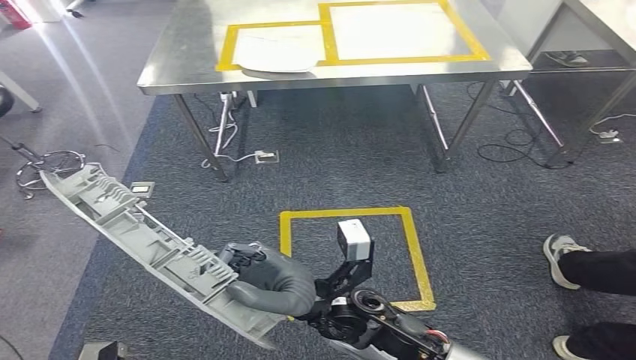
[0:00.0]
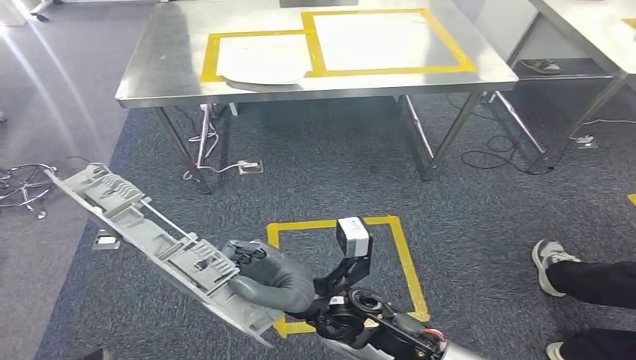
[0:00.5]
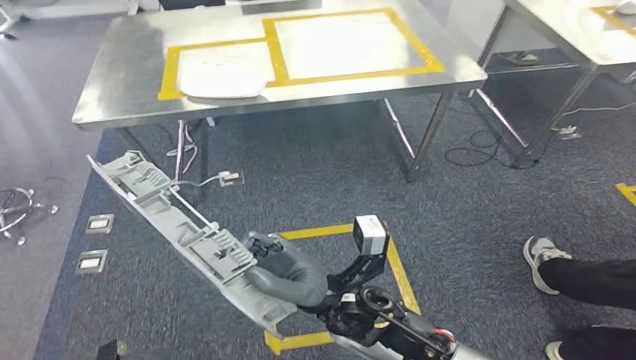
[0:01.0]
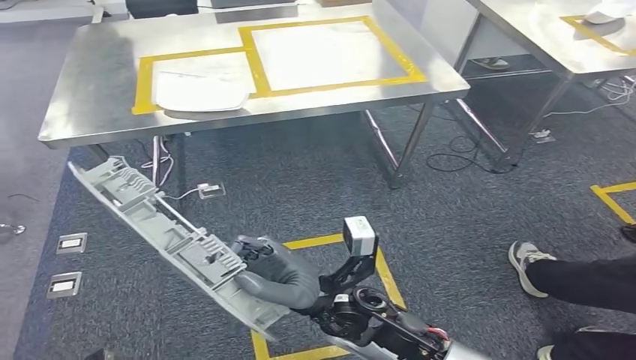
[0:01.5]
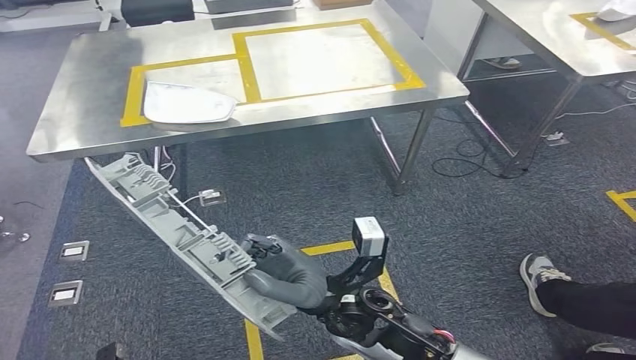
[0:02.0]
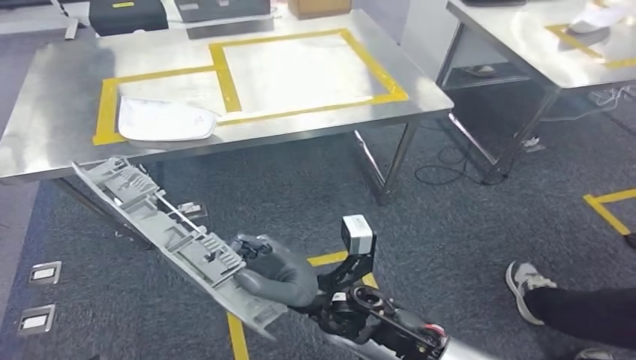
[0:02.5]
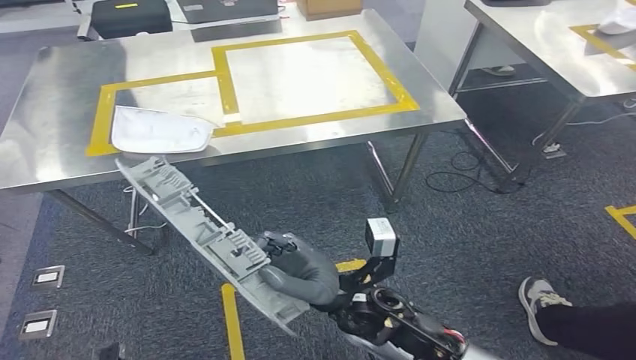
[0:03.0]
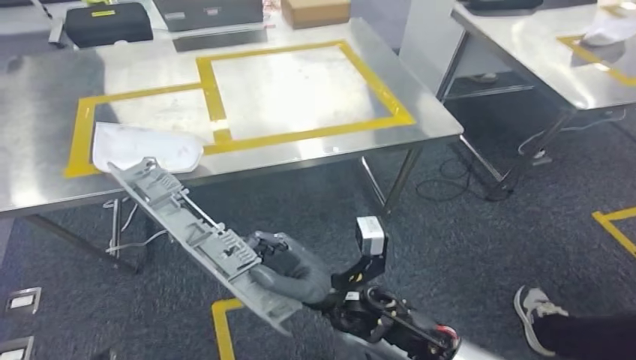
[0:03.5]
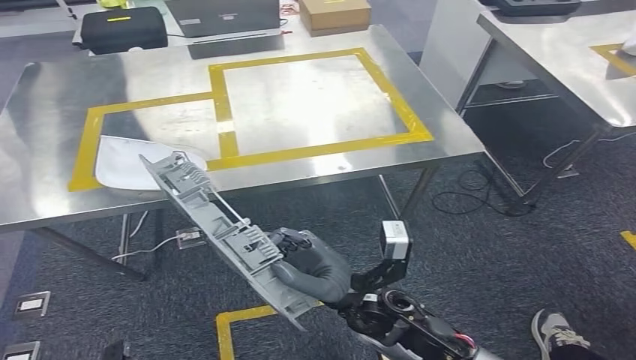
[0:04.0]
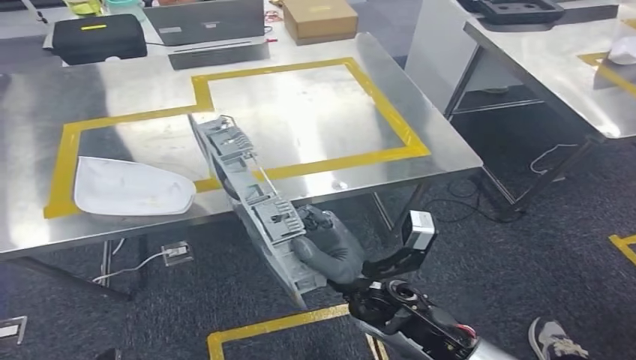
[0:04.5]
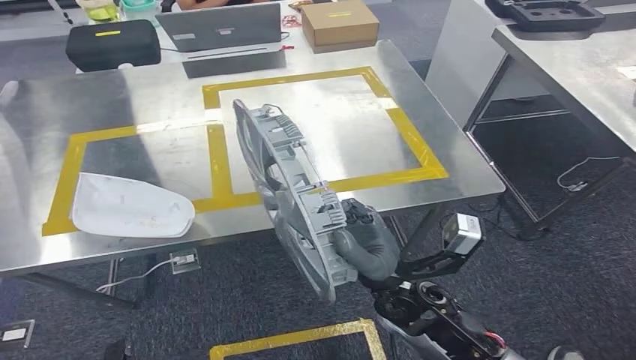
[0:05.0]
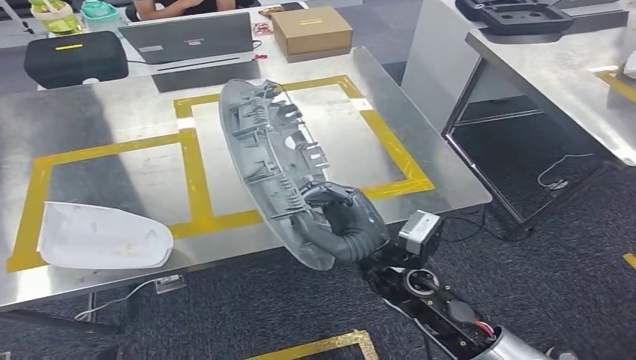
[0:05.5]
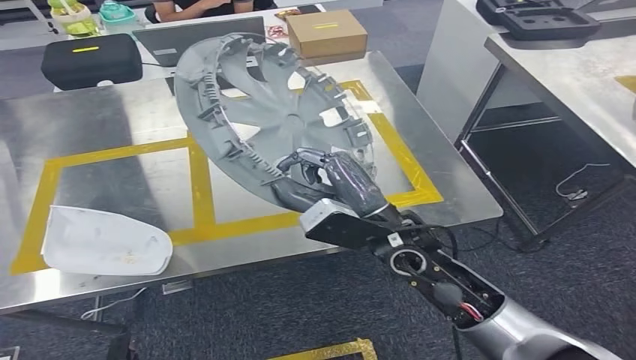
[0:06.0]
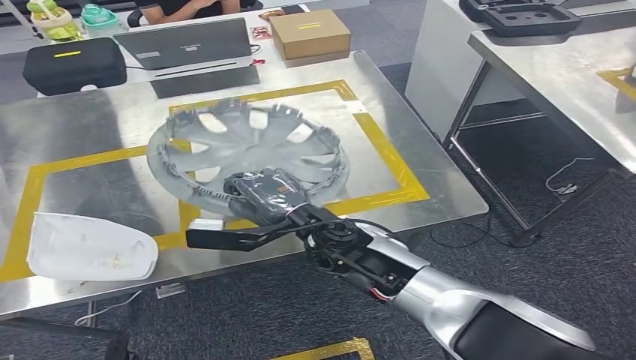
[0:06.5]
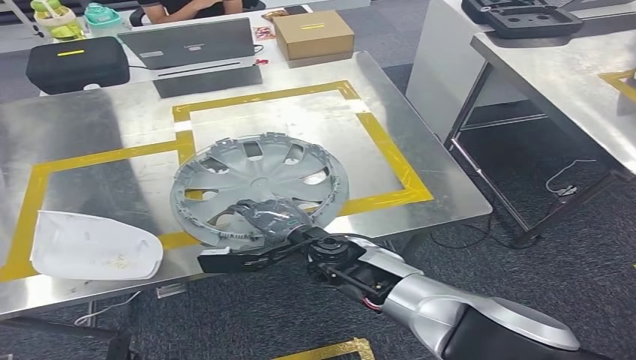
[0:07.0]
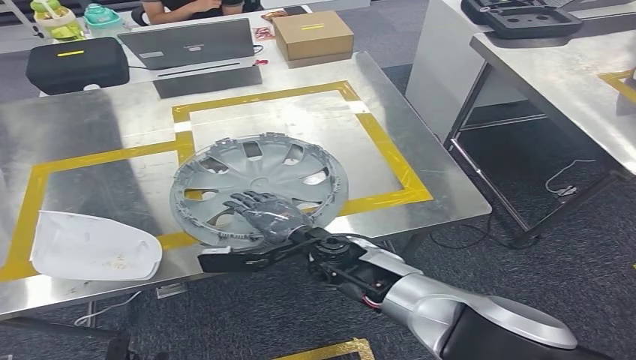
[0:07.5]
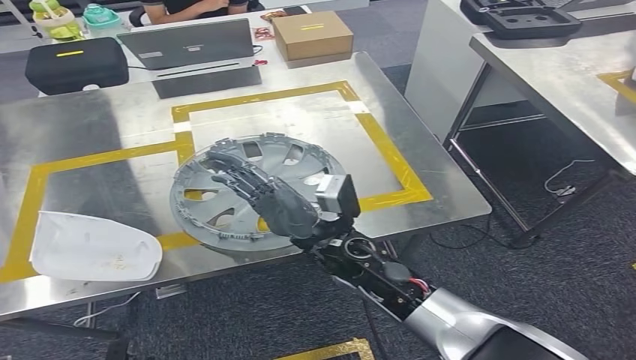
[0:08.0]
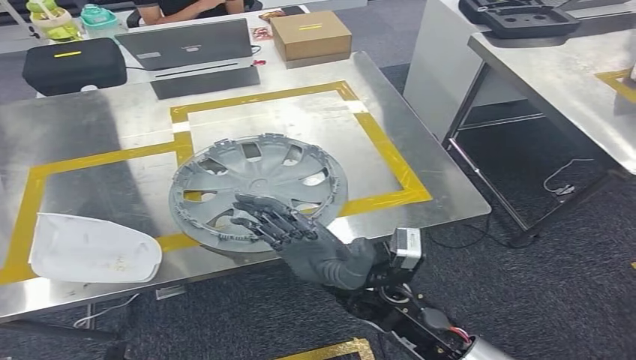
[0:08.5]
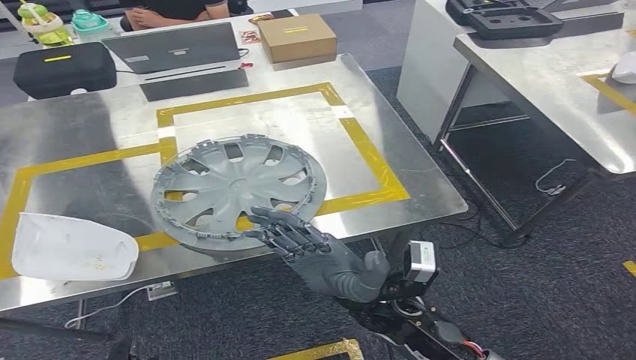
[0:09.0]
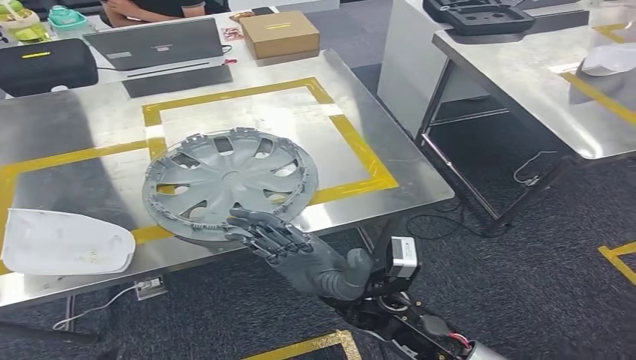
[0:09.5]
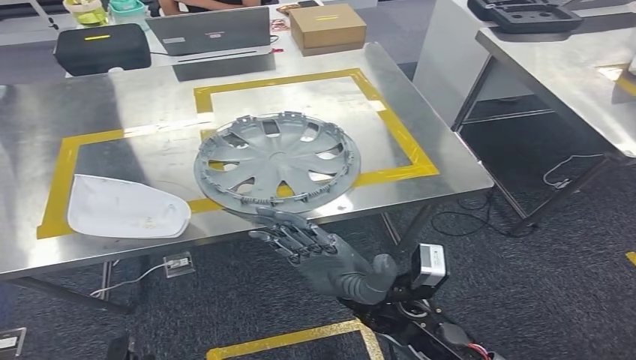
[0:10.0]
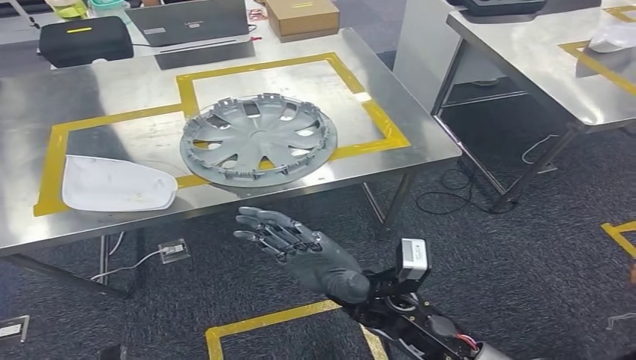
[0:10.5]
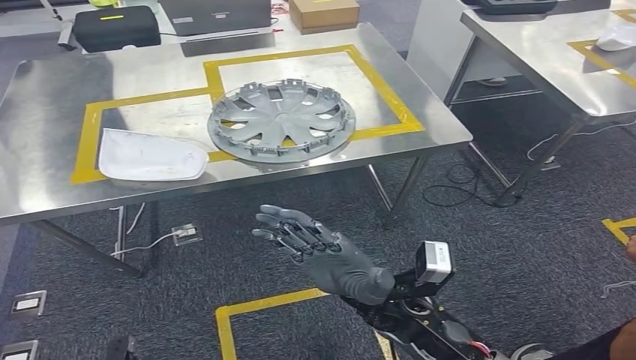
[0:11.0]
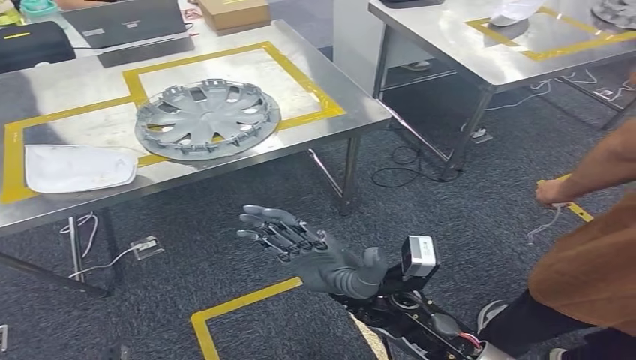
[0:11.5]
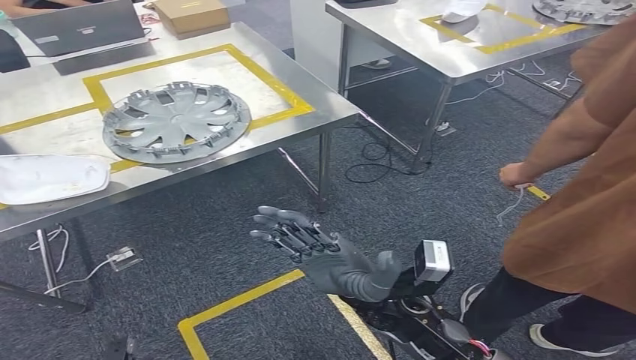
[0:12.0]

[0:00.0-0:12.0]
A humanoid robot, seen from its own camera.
Step, 0:00.0 to 0:06.0: Move the small component to the workbench.
Step, 0:06.5 to 0:11.0: Insert the small component into the corresponding slot on the workbench.

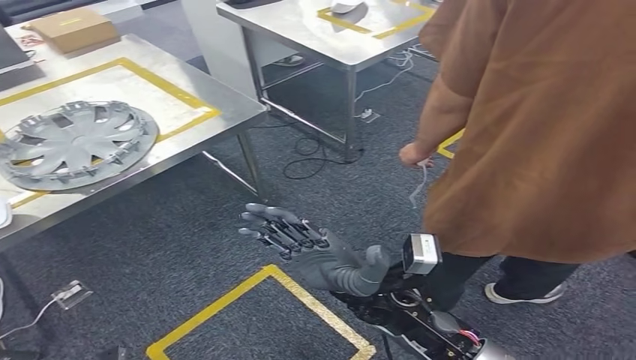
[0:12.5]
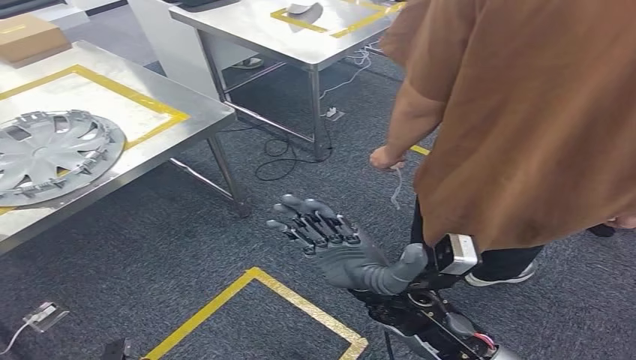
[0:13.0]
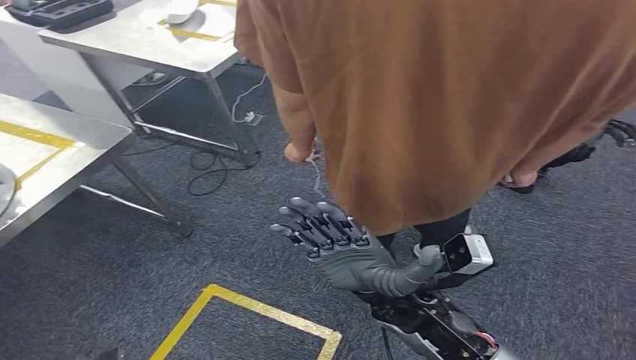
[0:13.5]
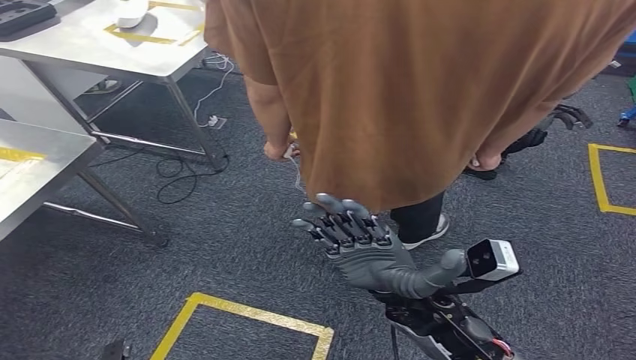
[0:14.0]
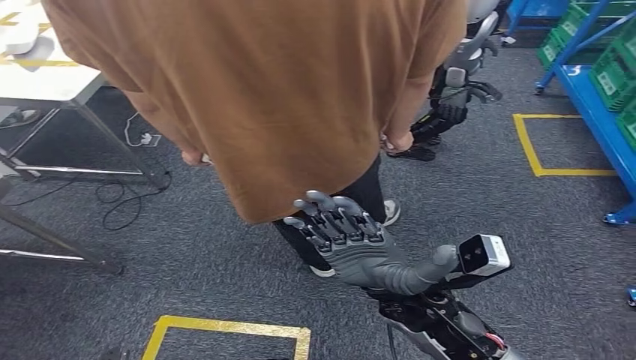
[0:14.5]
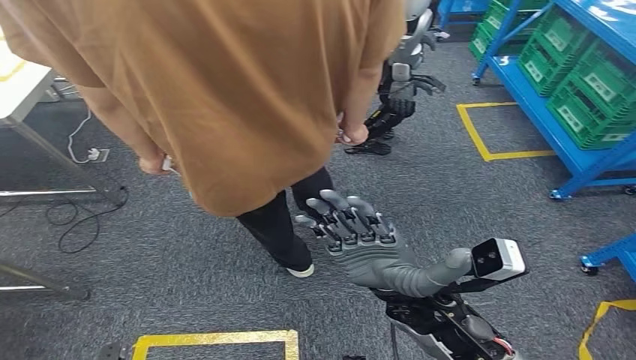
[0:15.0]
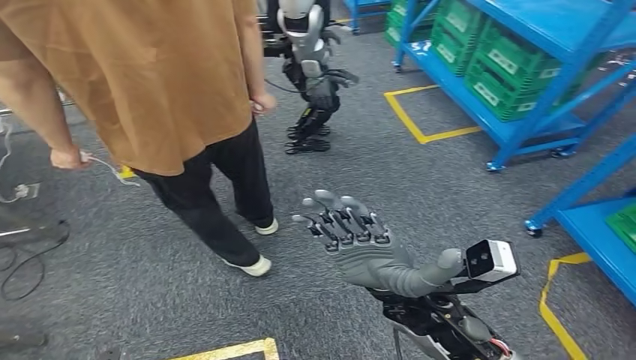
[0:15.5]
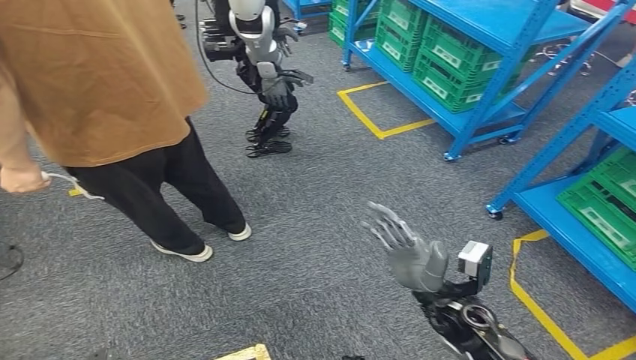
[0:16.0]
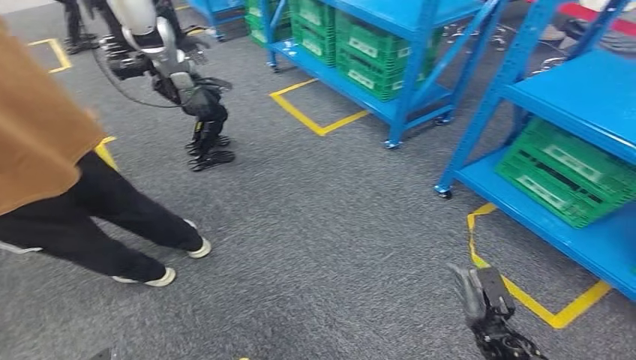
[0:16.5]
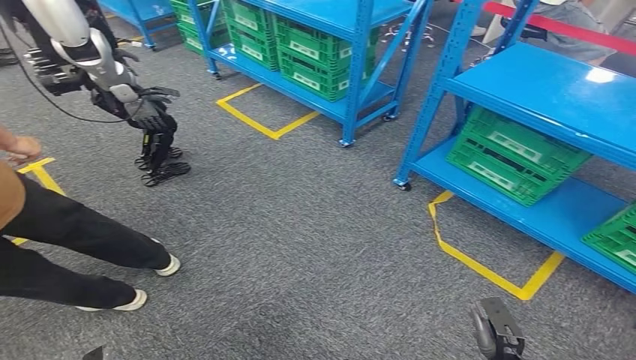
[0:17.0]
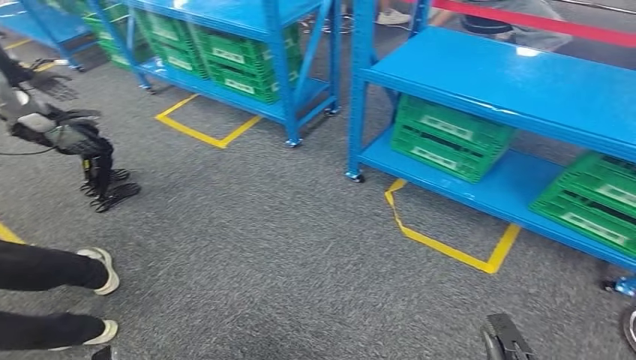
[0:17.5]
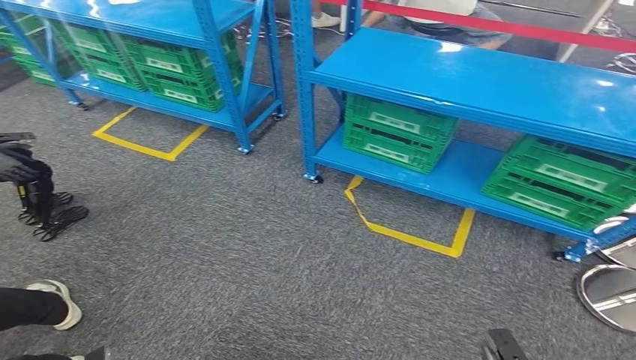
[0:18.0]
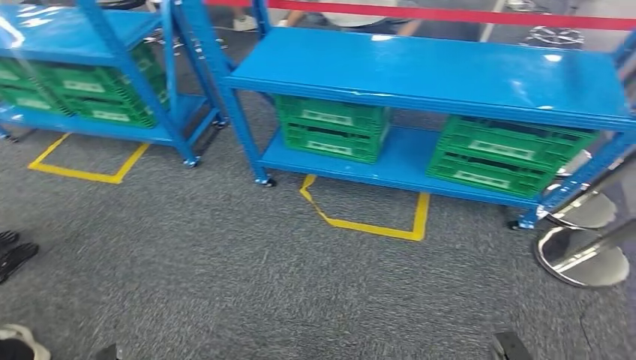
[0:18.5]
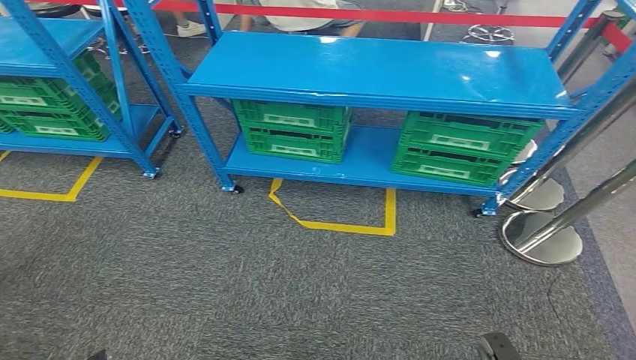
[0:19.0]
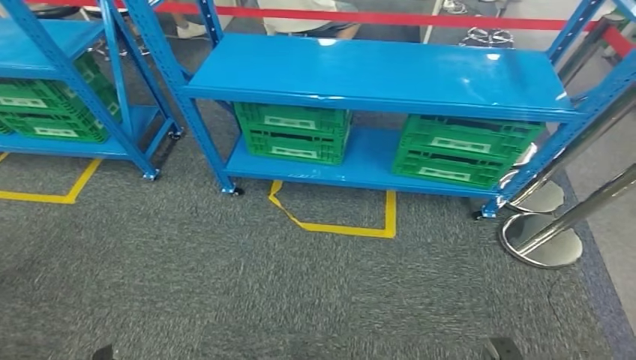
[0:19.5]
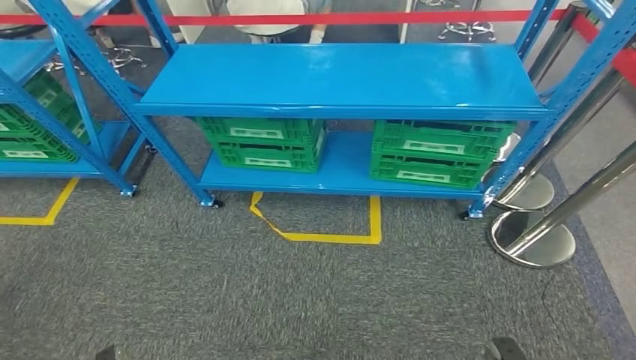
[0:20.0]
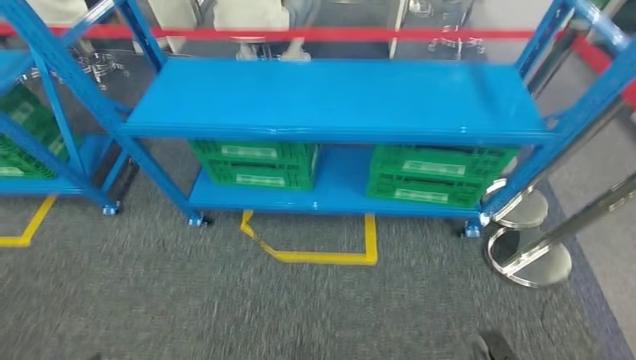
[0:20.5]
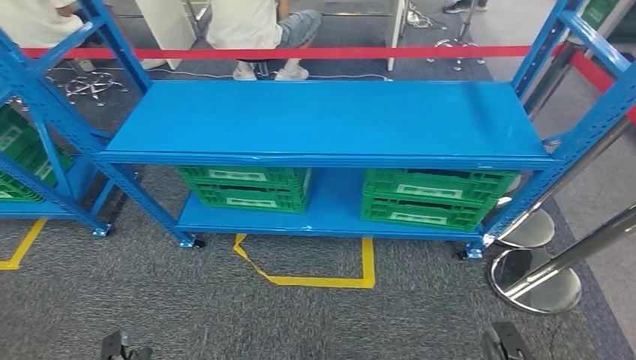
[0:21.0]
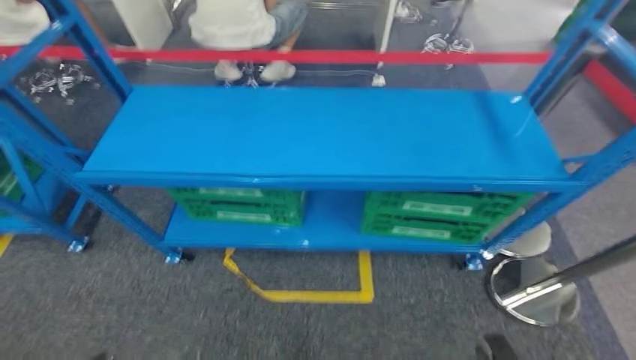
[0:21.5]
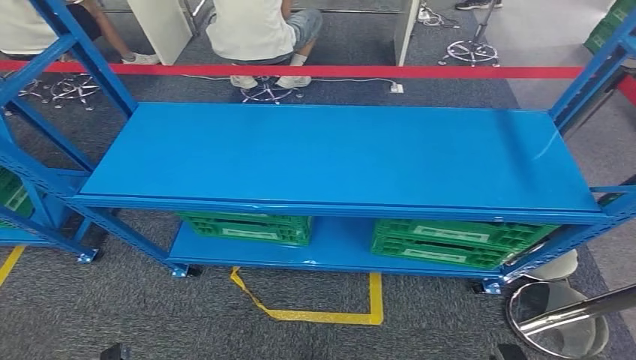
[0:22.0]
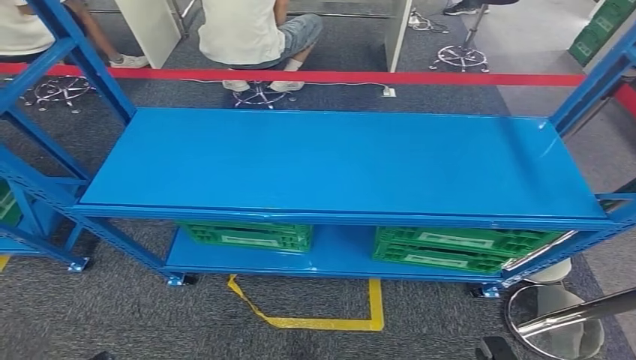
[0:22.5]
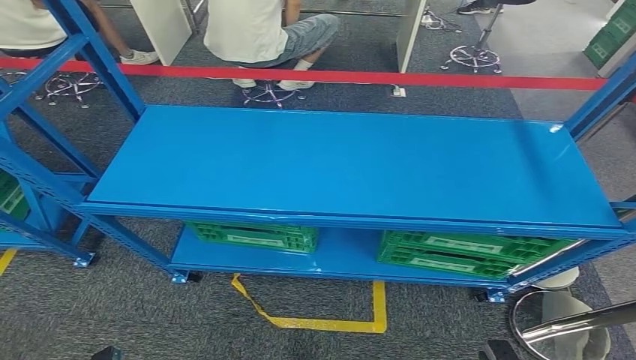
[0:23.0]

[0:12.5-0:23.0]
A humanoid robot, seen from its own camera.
Step, 0:12.5 to 0:23.0: Return to the initial position at the workbench.
